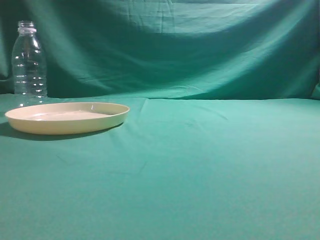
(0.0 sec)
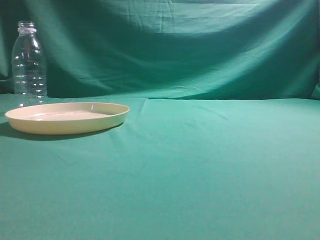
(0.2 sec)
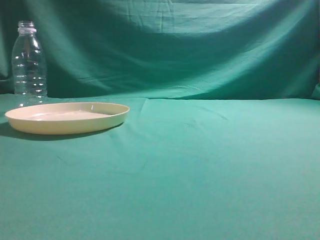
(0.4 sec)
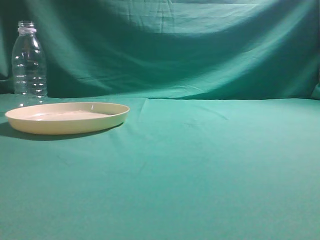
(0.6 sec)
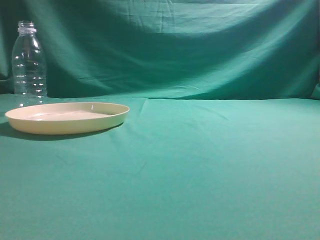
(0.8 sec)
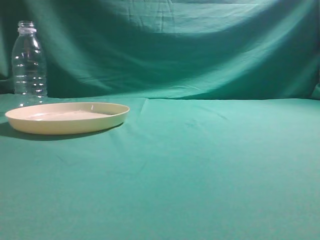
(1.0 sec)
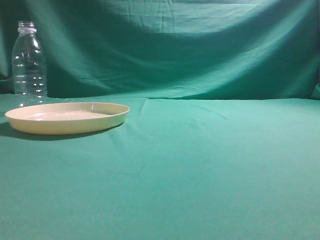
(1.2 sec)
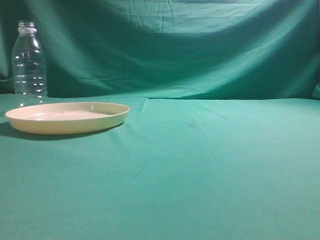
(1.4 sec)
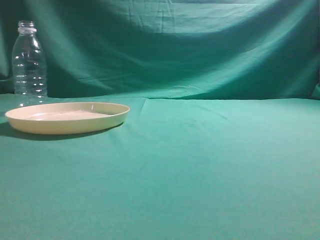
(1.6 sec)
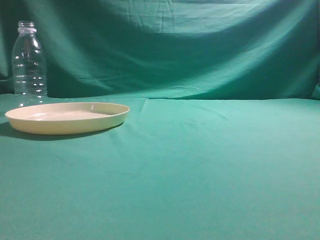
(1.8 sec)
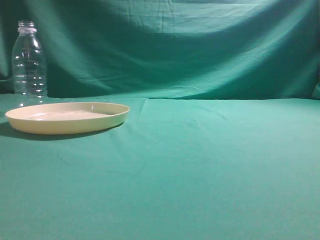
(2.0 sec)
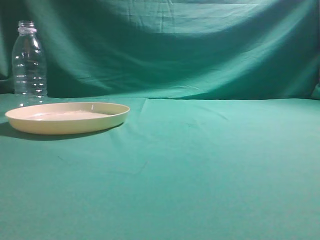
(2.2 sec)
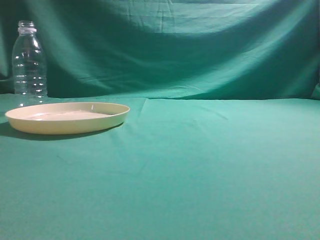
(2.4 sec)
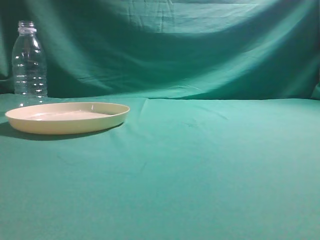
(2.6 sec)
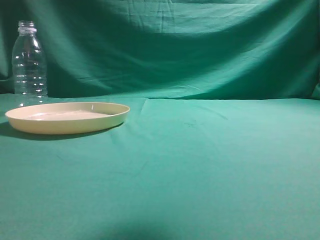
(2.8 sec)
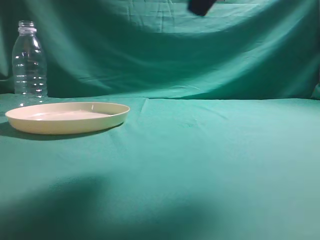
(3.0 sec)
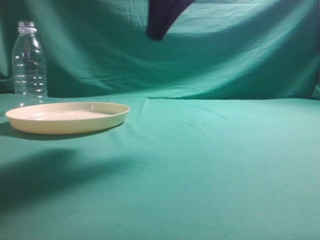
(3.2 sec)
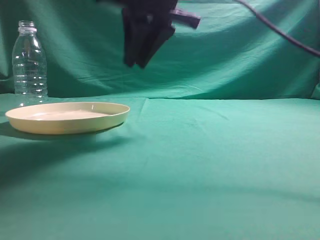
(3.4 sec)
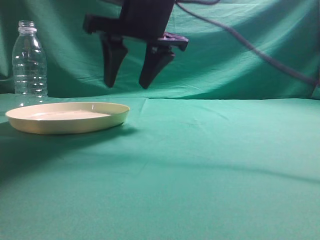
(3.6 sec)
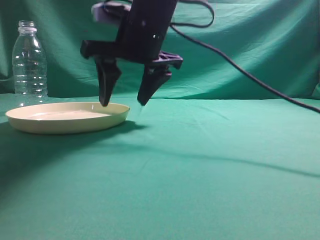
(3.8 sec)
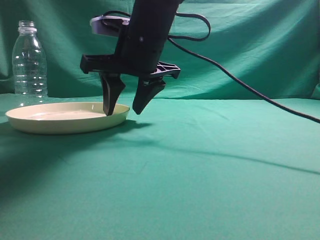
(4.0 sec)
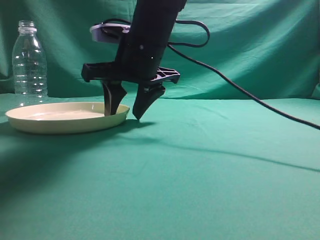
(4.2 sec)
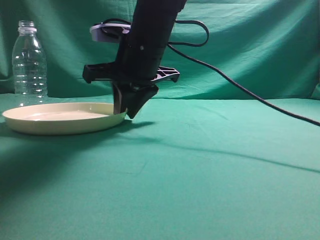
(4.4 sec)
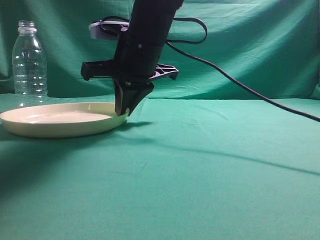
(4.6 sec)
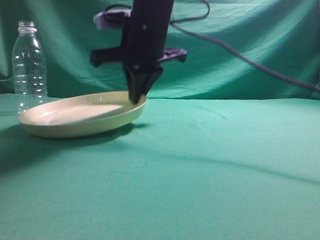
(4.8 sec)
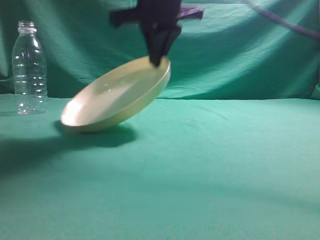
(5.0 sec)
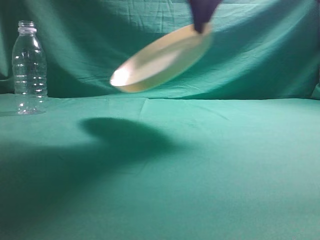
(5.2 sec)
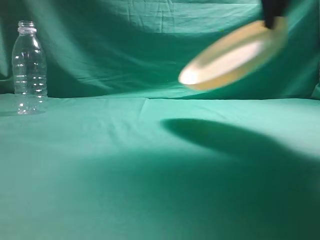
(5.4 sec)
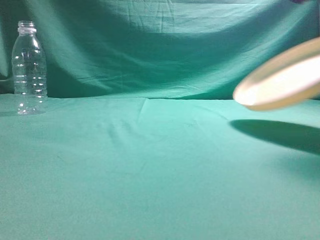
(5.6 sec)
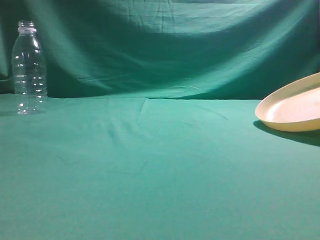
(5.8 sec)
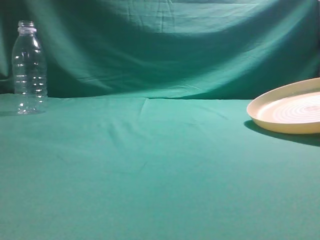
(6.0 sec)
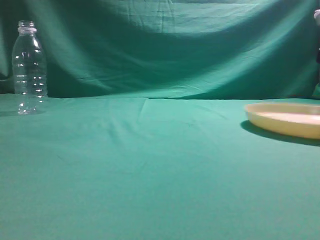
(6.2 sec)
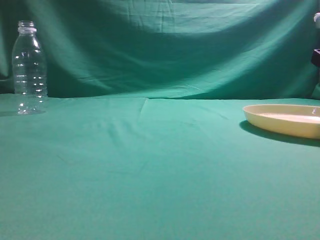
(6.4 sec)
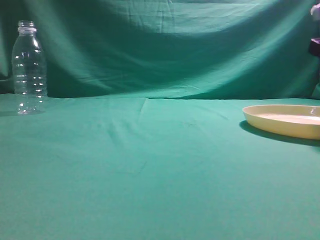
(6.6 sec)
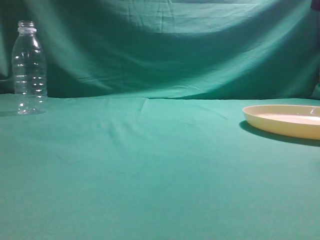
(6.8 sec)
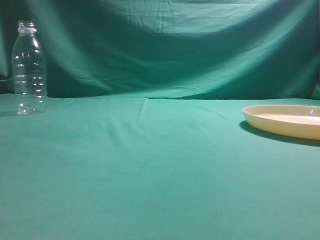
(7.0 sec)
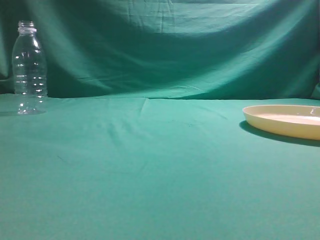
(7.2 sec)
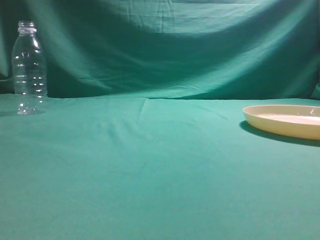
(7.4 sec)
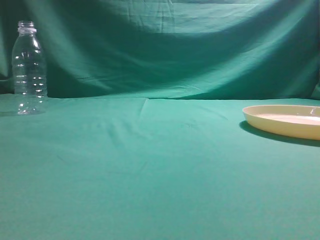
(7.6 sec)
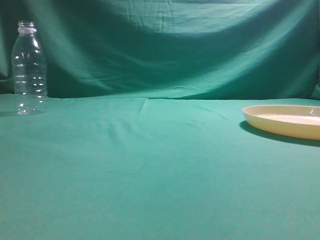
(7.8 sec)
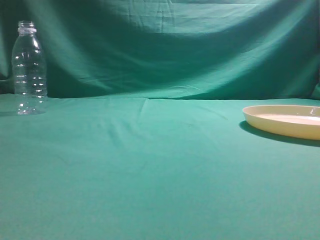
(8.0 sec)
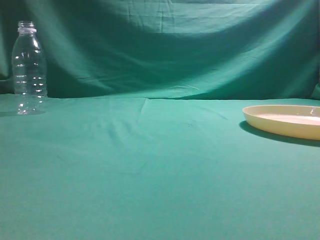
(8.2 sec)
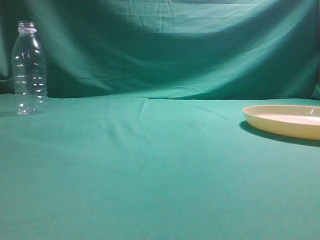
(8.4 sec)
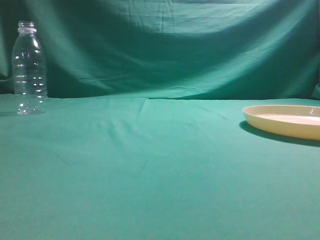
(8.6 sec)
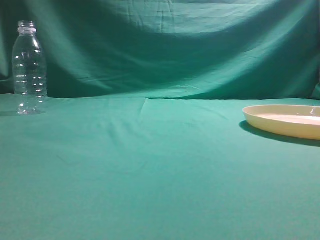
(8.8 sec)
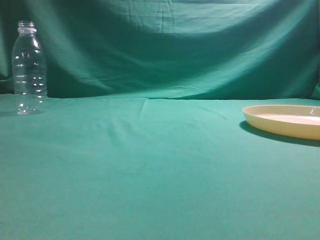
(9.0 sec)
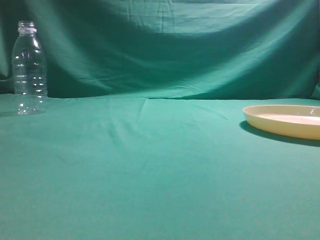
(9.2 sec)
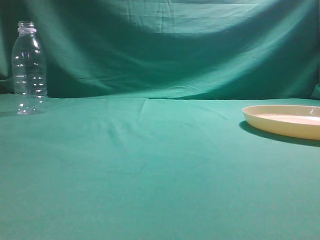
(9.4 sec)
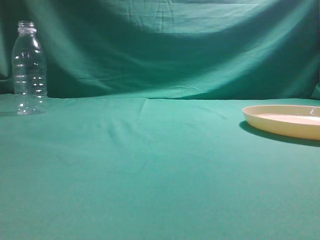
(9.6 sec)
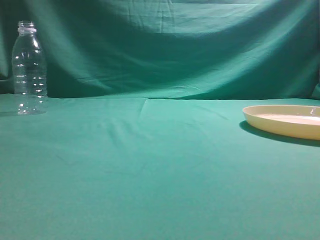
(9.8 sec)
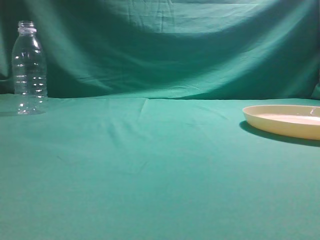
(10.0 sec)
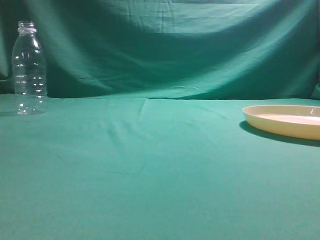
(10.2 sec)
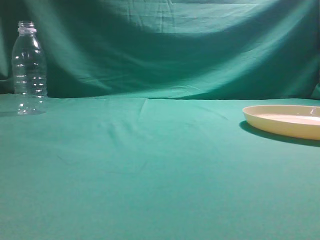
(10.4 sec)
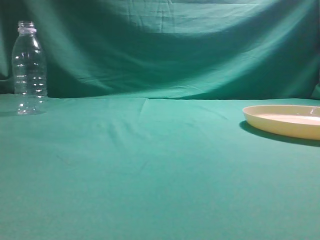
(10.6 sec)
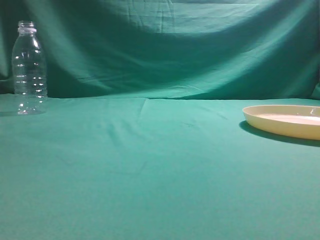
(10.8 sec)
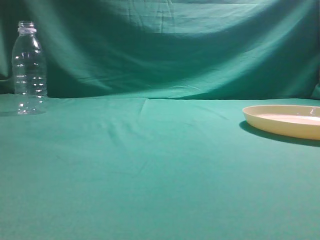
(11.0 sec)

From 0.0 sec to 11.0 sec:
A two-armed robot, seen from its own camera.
Step, from 0.0 sec to 5.0 sec: Pick the container that can hold fruits.
Step, from 5.2 sec to 6.8 sec: Move the picked object to the right side of the table.
From 1.6 sec to 3.2 sec: The right gripper travels forward and to the left by some 35 cm.
From 3.2 sec to 4.8 sec: The right gripper heads downward, forward and to the left, covering approximately 15 cm, and opens, then closes once more.
From 4.8 sec to 6.2 sec: The right gripper heads to the right, covering about 30 cm.
From 6.2 sec to 7.8 sec: The right gripper travels backward and upward by some 30 cm, and opens, then closes once more.
